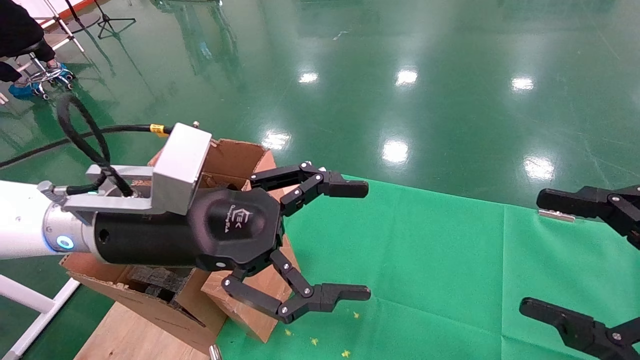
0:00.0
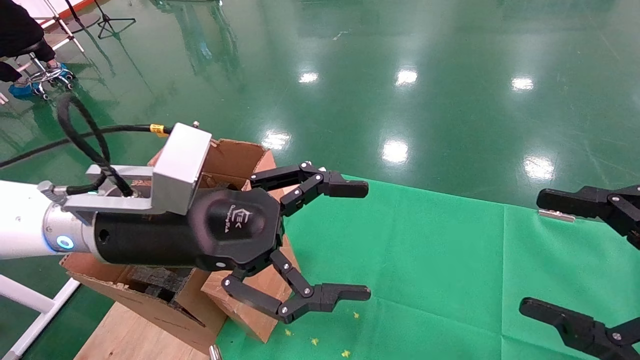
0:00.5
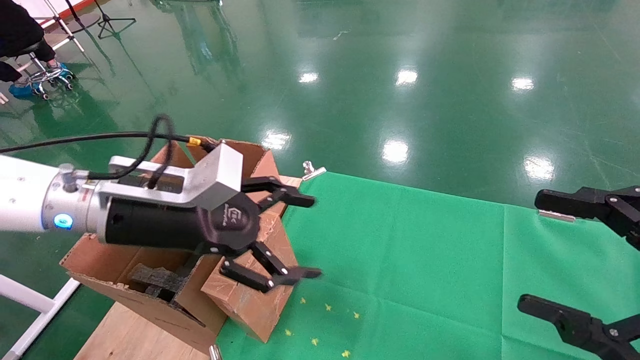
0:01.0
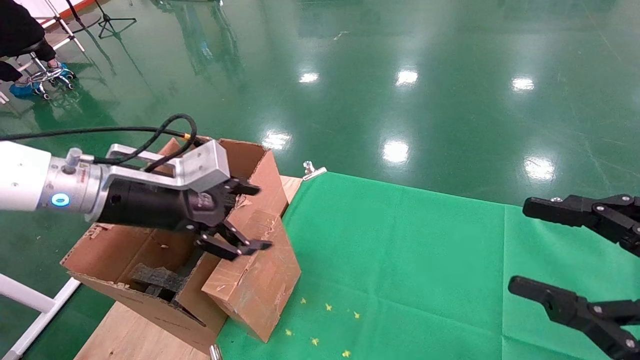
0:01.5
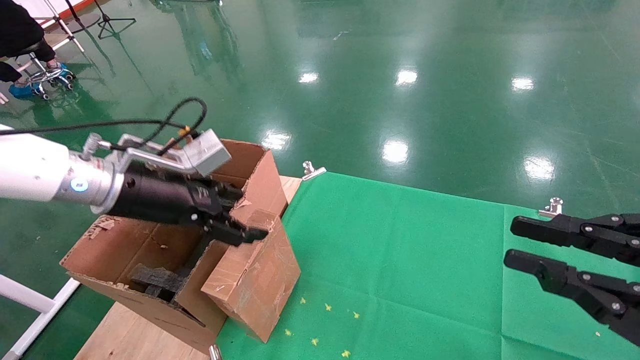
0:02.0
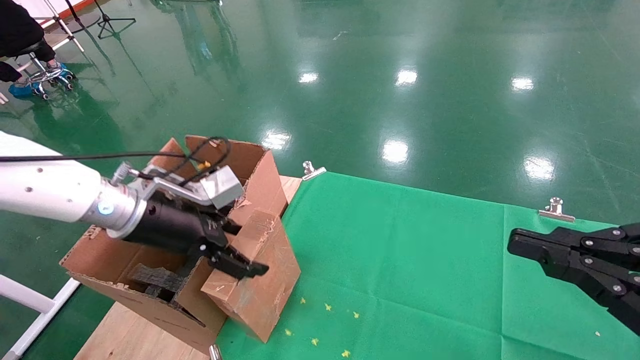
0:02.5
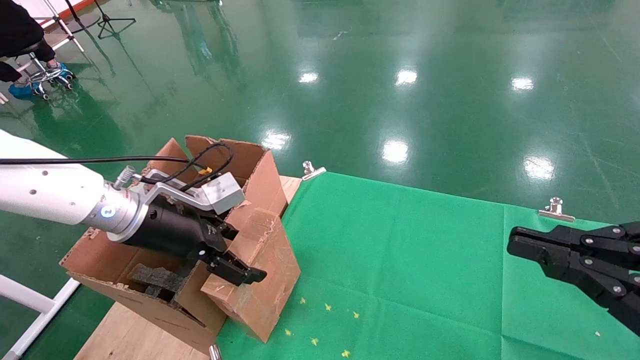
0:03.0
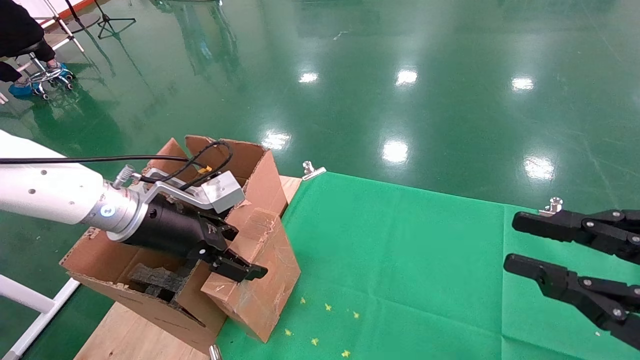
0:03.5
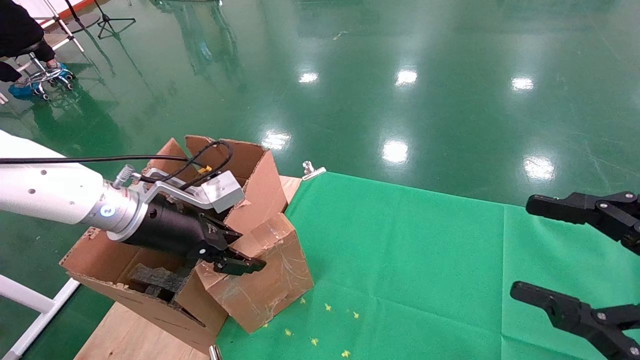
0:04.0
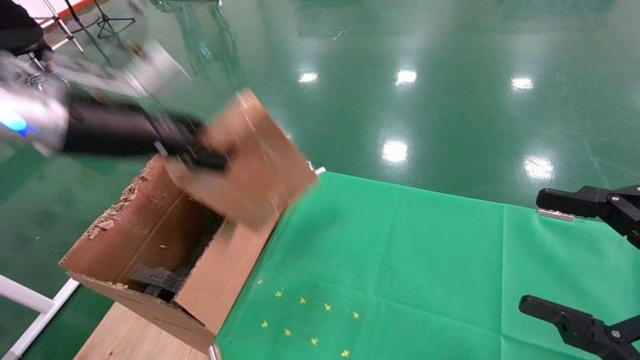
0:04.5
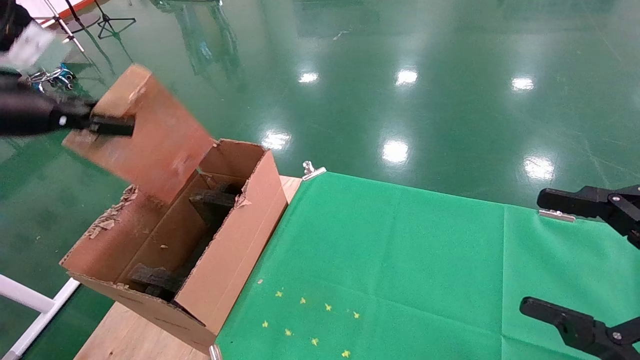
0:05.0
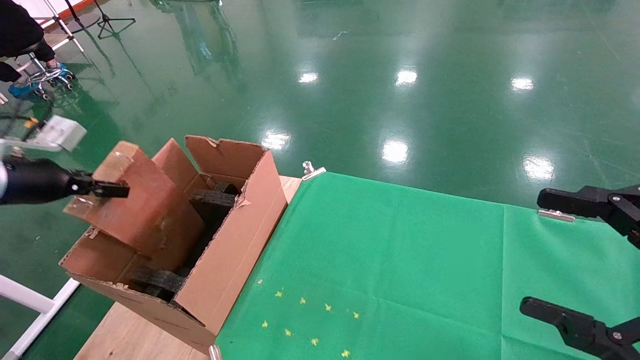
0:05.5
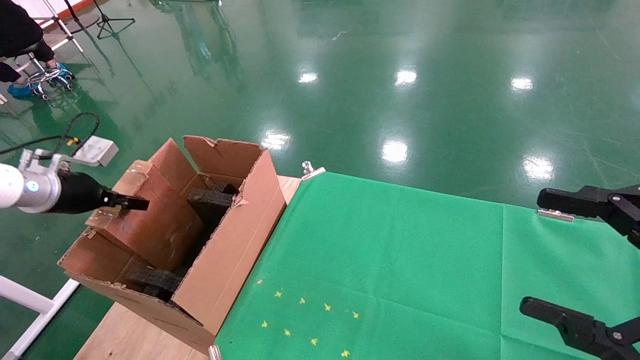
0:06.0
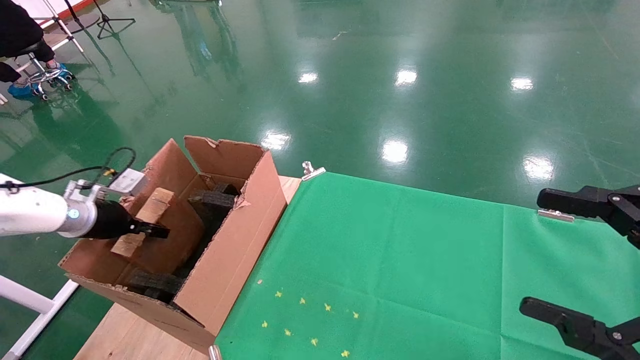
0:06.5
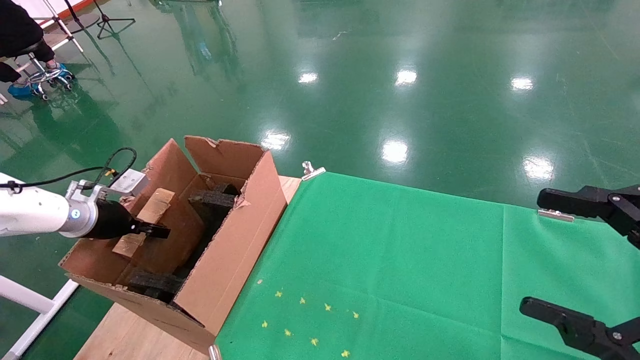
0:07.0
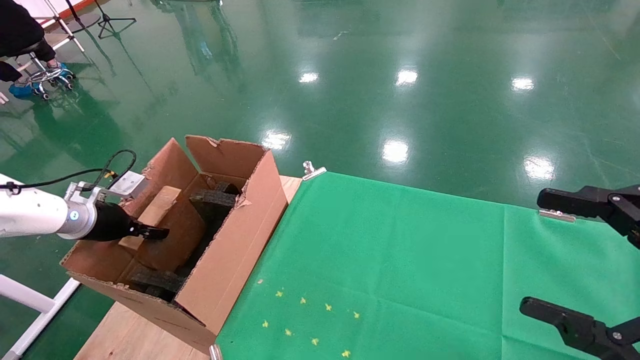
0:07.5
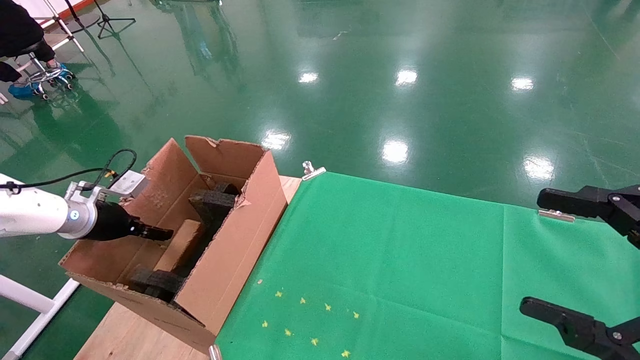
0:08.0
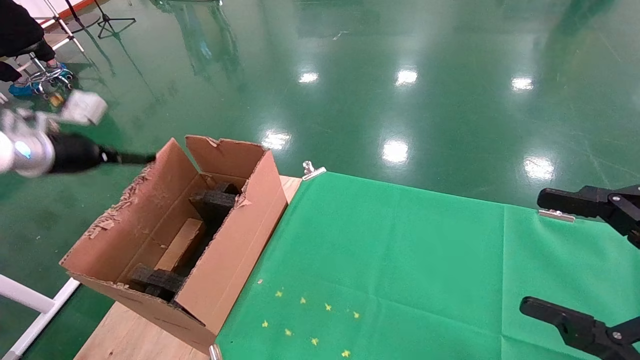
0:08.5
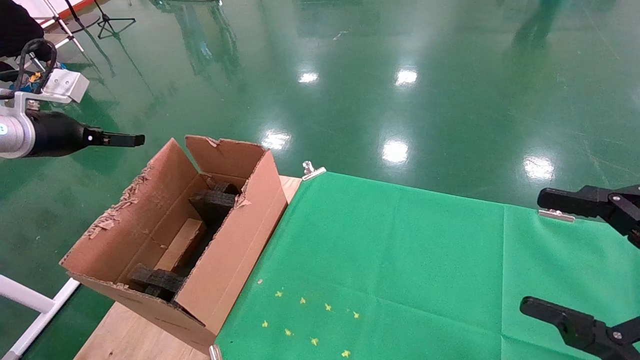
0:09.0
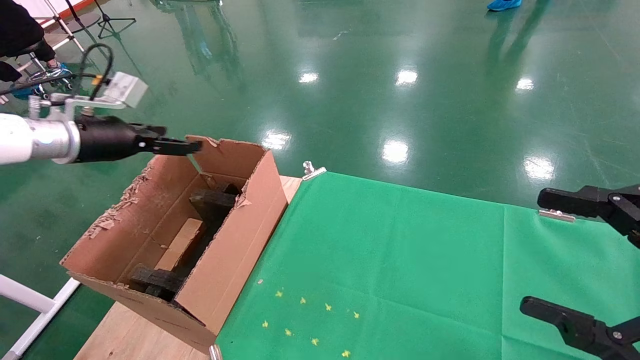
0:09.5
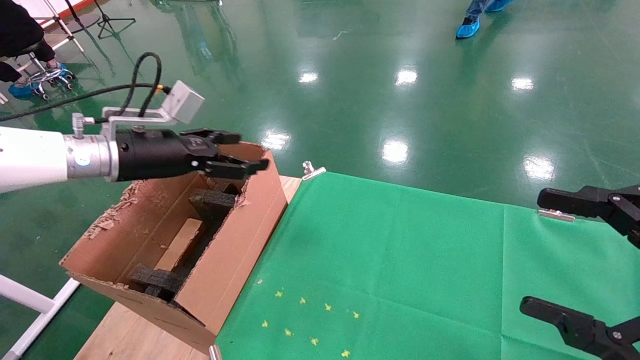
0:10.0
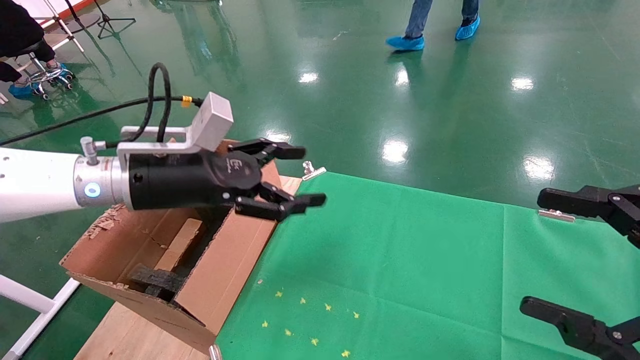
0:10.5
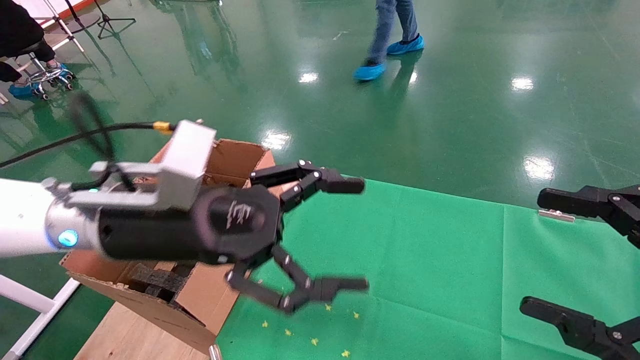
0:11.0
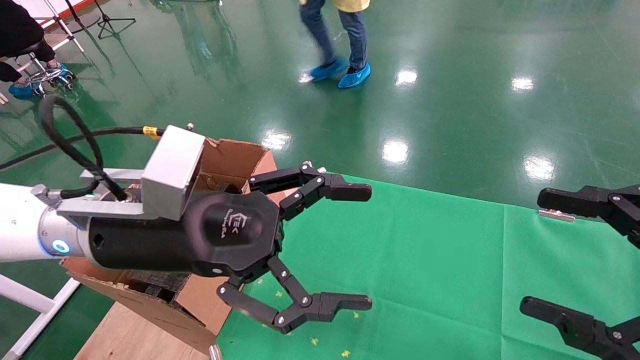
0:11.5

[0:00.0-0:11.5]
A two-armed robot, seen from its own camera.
Task of the whole recording: using a robotic arm to pick up a cardboard box and palace it the carton.
Step, 0:01.0 to 0:04.0: Pick up the mouse and the power cord paper box.
Step, 0:04.5 to 0:08.0: Place the mouse and the power cord paper box into the container.
0:00.0 to 0:02.0: The right gripper closes its fingers. Meanwhile the left gripper is displaced to the left and forward by about 10 cm.
0:02.0 to 0:04.0: The left gripper closes its fingers.
0:04.0 to 0:06.0: The right gripper opens up; the left gripper heads to the left, covering about 20 cm, and closes up.
0:06.0 to 0:07.5: The left gripper moves downward, roughly 5 cm.
0:07.5 to 0:09.5: The left gripper moves upward and to the right, about 15 cm, and opens up.
0:09.5 to 0:11.5: The left gripper heads to the right and backward, covering approximately 25 cm.

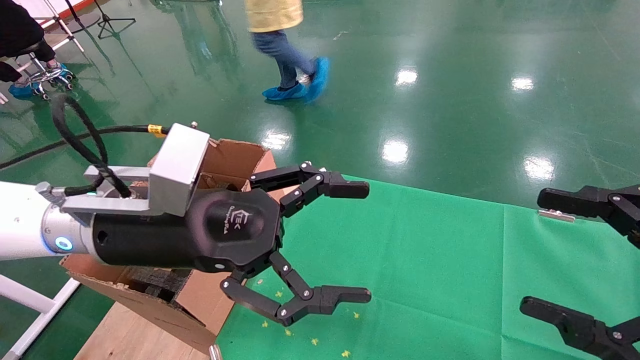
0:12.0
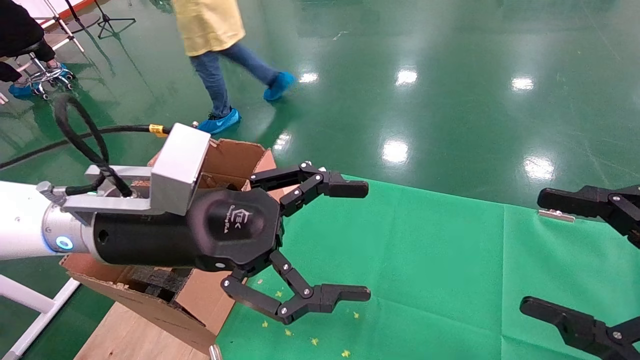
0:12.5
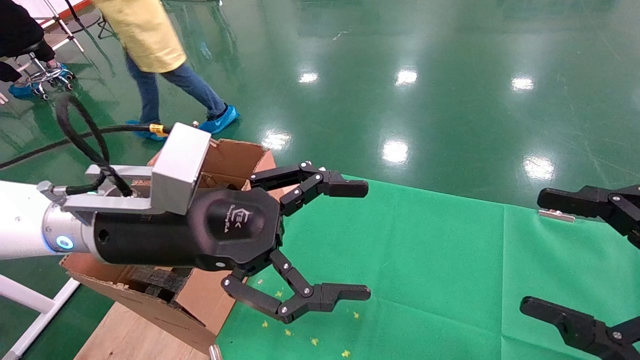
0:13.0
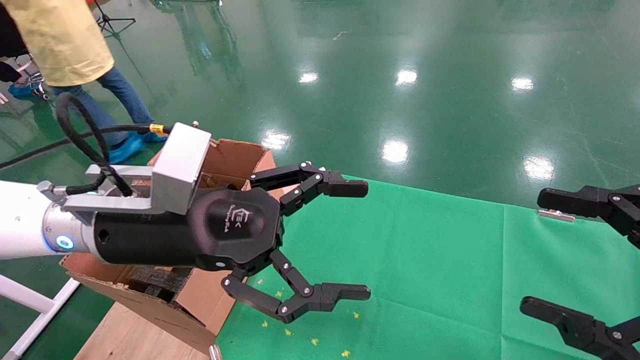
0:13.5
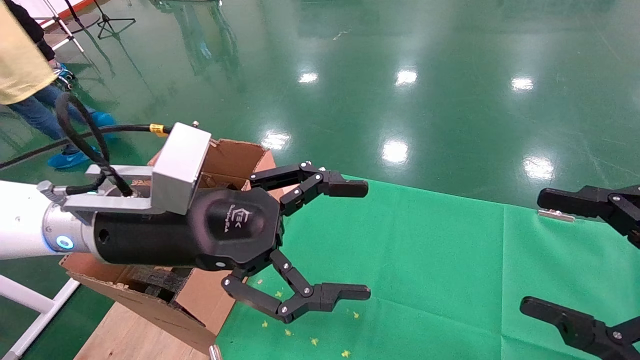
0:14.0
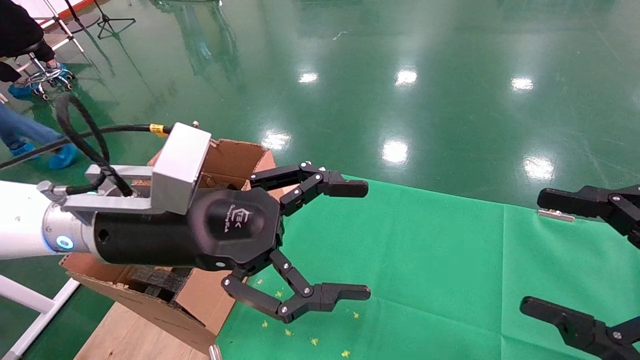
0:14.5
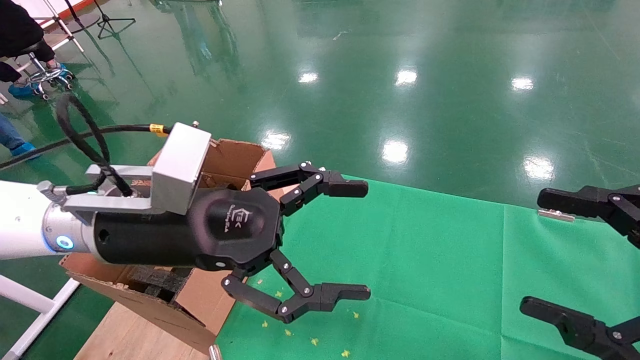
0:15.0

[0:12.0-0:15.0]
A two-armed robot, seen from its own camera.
Task of the whole recording: using a robotic arm to pick up a cardboard box and palace it the carton.
0:12.0 to 0:15.0: Neither gripper changes place.

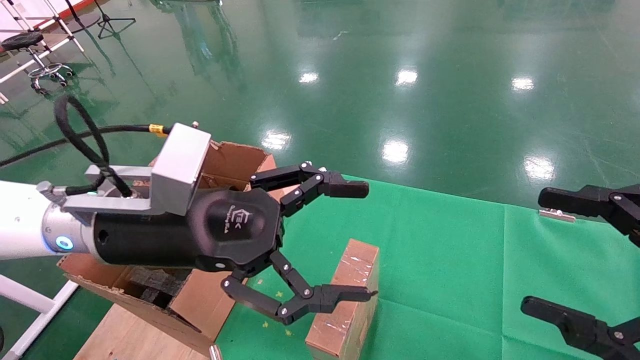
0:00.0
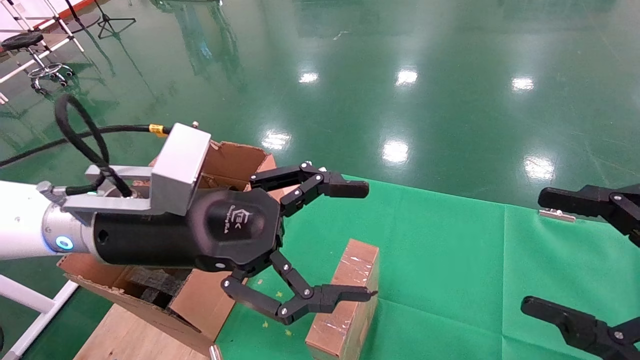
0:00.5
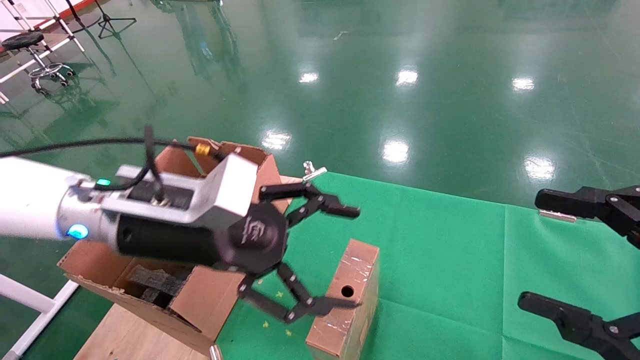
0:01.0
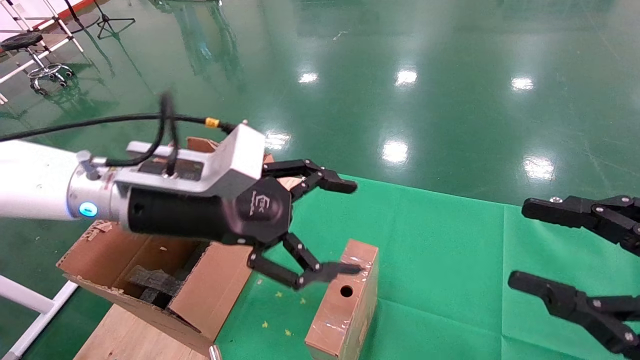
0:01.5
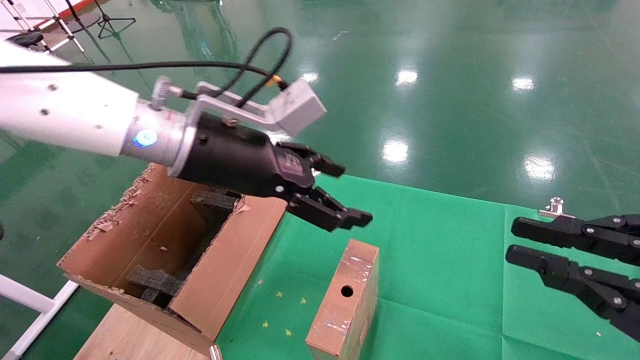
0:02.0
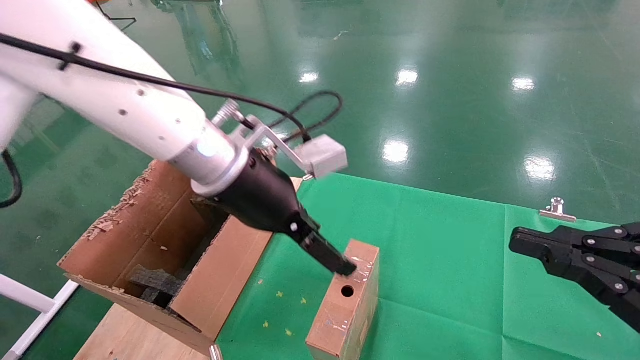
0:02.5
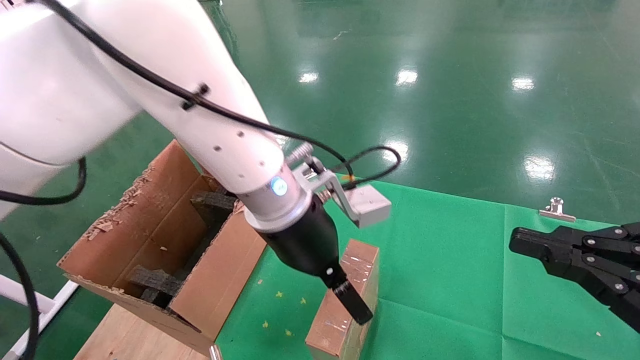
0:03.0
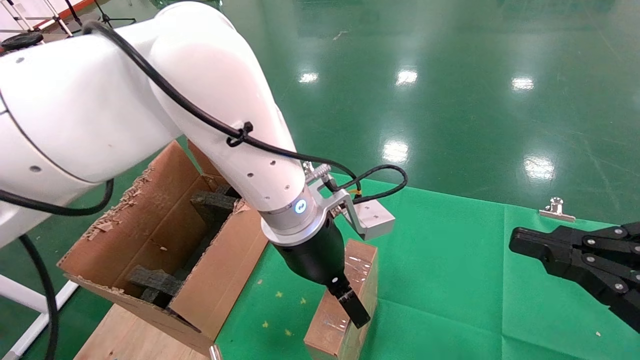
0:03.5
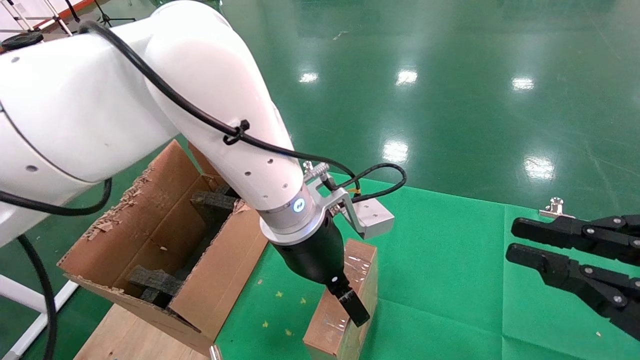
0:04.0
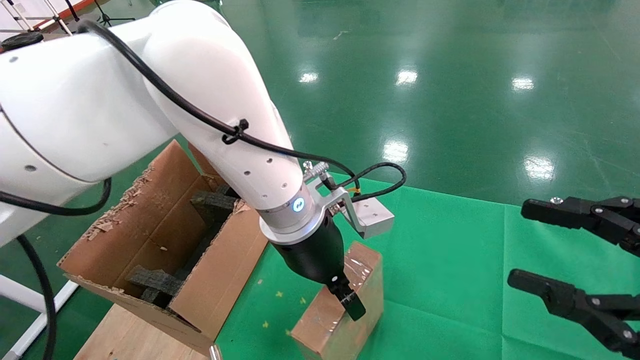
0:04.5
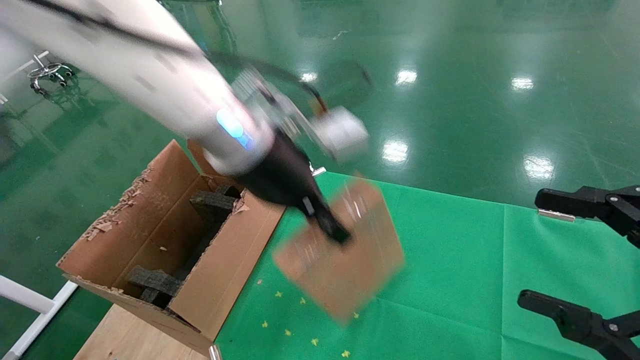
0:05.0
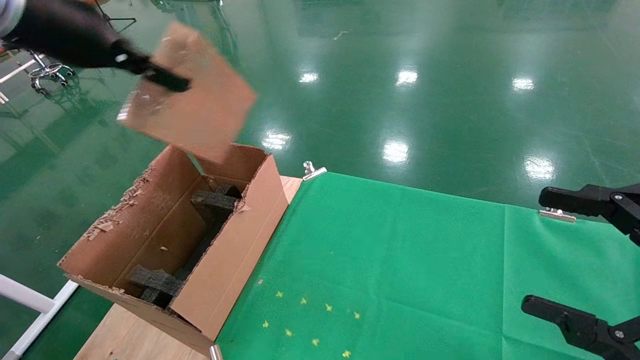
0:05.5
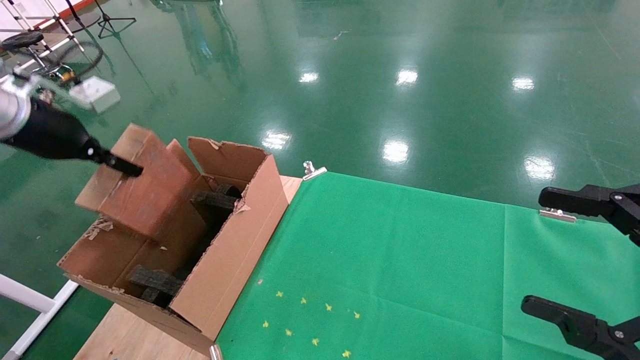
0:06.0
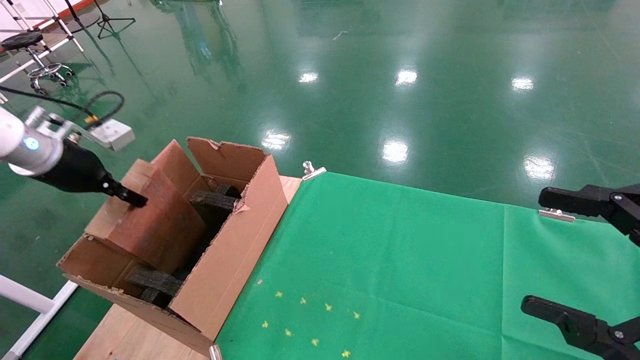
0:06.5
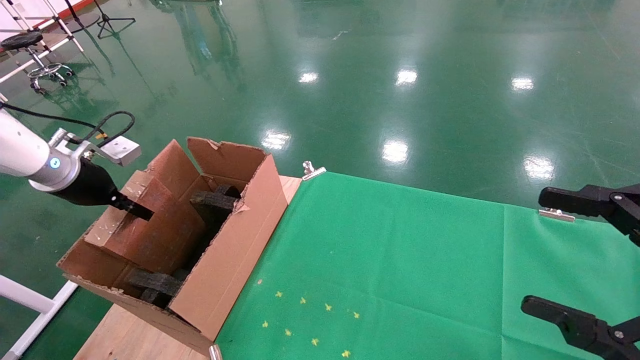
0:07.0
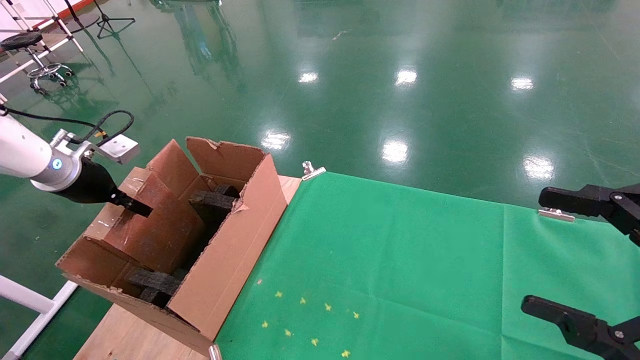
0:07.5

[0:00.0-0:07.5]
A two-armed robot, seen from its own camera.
Task of the whole recording: using a robotic arm to pick up a cardboard box and palace it the carton.
Step, 0:01.5 to 0:04.5: Pick up the mouse and the power cord paper box.
0:00.0 to 0:02.0: The right gripper closes up. Meanwhile the left gripper goes about 10 cm forward and upward.
0:02.0 to 0:04.0: The left gripper goes approximately 10 cm to the right and downward.
0:04.0 to 0:05.5: The right gripper opens up, while the left gripper goes approximately 35 cm to the left and upward, and closes its fingers.
0:05.5 to 0:07.5: The left gripper travels downward and to the left by roughly 25 cm.
